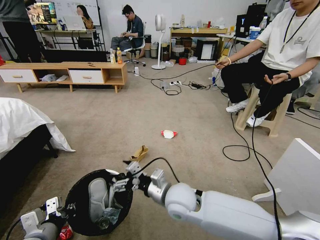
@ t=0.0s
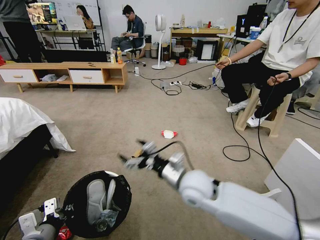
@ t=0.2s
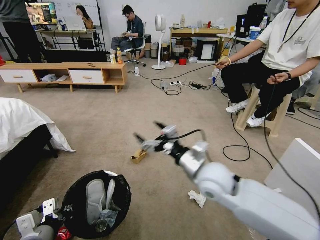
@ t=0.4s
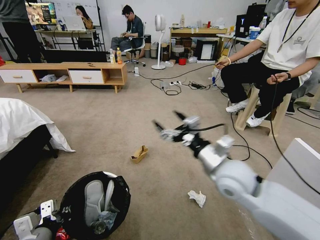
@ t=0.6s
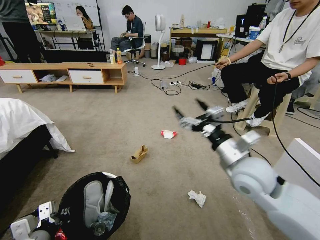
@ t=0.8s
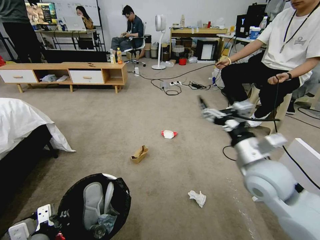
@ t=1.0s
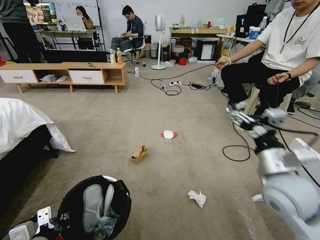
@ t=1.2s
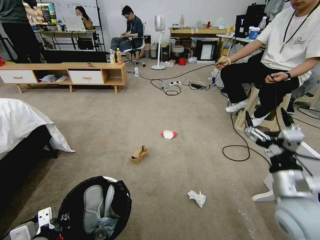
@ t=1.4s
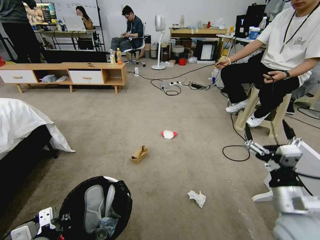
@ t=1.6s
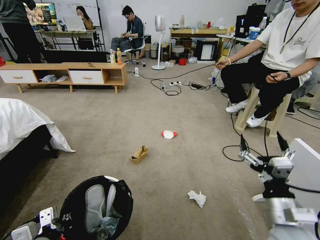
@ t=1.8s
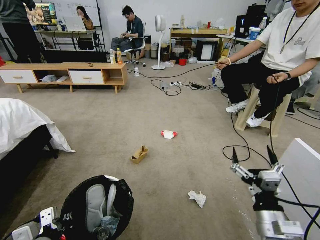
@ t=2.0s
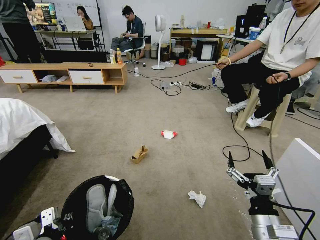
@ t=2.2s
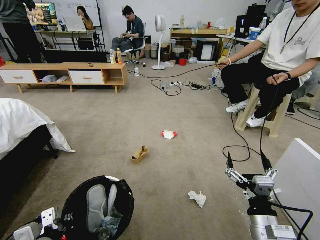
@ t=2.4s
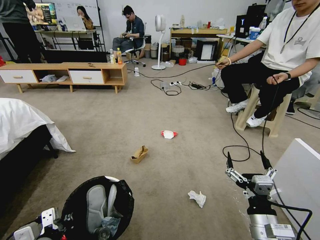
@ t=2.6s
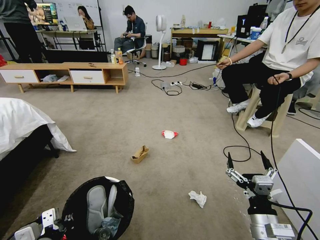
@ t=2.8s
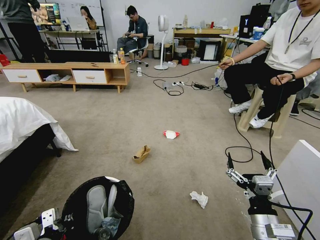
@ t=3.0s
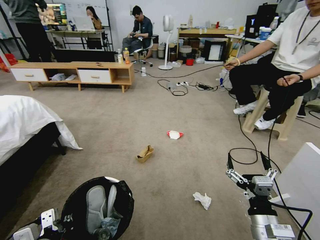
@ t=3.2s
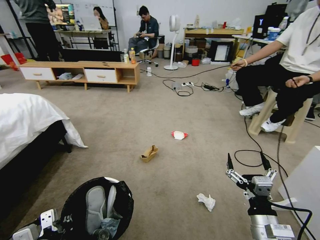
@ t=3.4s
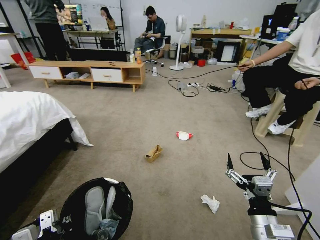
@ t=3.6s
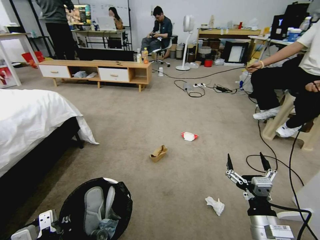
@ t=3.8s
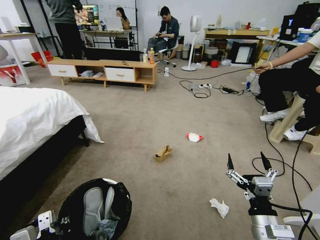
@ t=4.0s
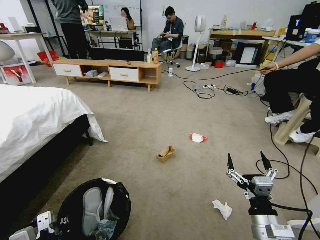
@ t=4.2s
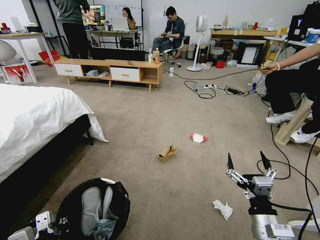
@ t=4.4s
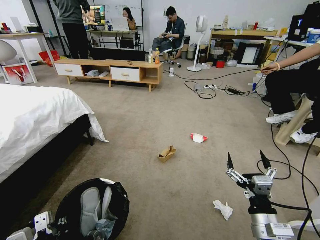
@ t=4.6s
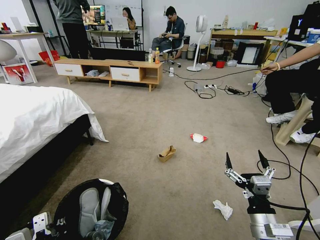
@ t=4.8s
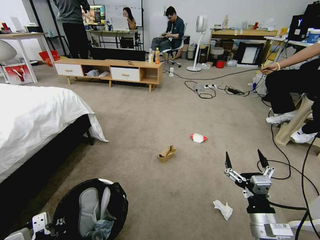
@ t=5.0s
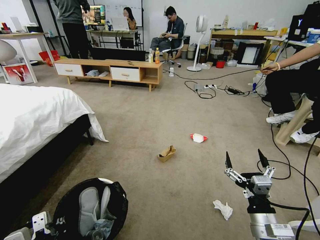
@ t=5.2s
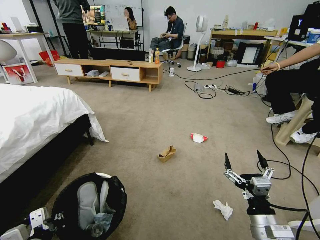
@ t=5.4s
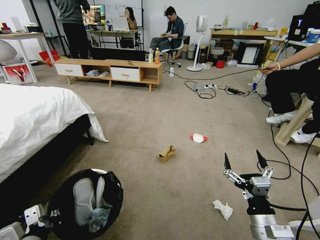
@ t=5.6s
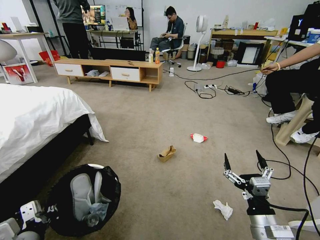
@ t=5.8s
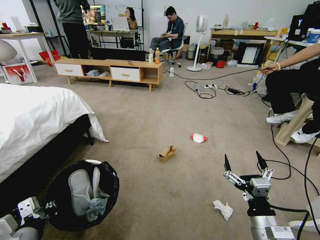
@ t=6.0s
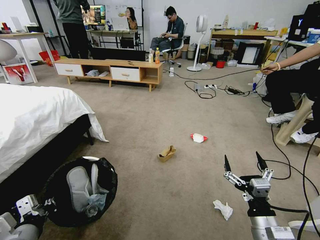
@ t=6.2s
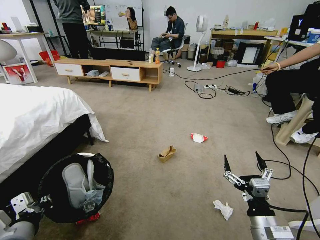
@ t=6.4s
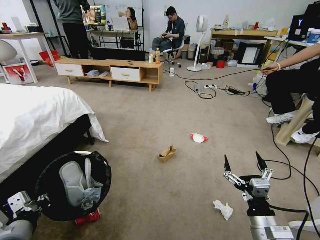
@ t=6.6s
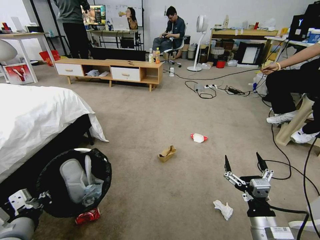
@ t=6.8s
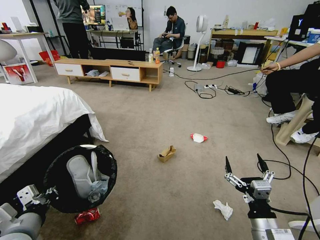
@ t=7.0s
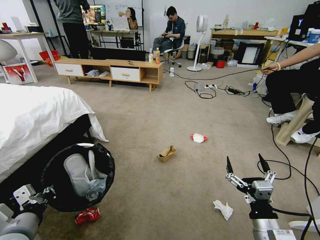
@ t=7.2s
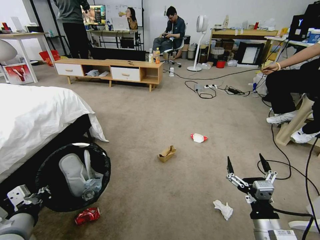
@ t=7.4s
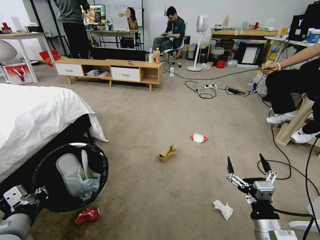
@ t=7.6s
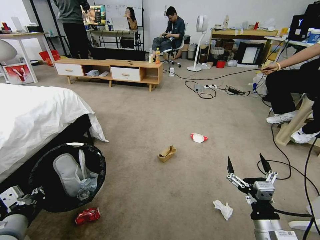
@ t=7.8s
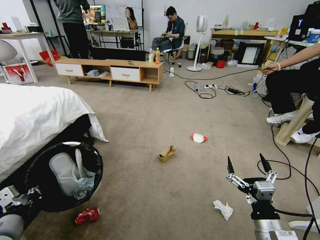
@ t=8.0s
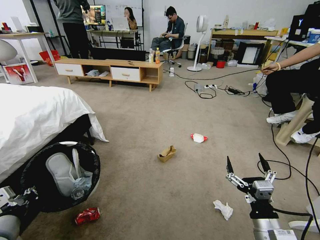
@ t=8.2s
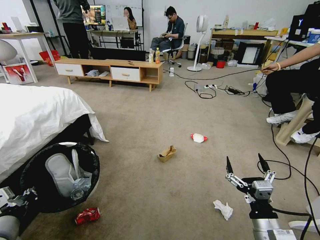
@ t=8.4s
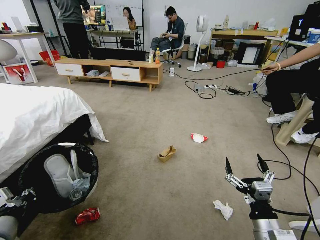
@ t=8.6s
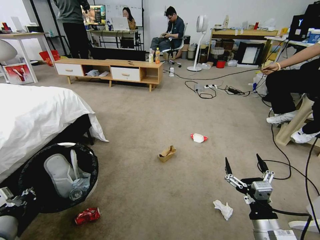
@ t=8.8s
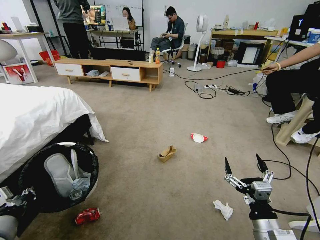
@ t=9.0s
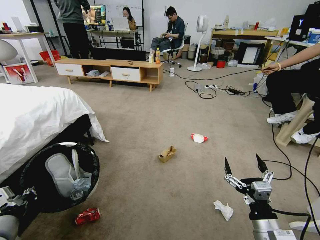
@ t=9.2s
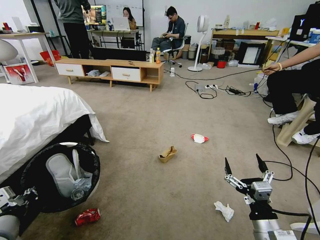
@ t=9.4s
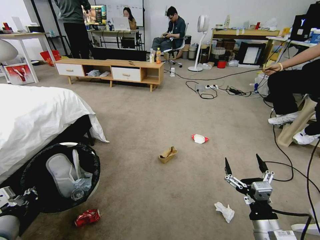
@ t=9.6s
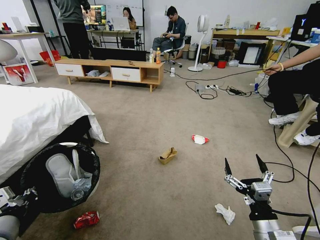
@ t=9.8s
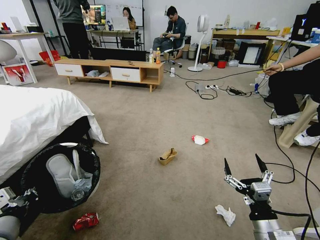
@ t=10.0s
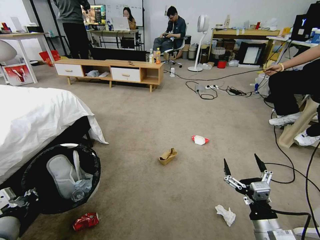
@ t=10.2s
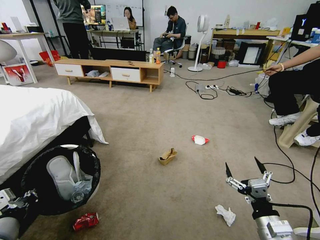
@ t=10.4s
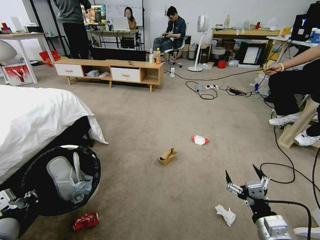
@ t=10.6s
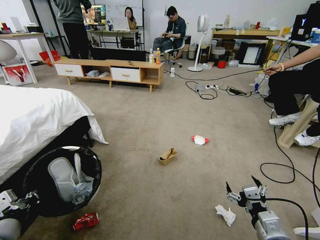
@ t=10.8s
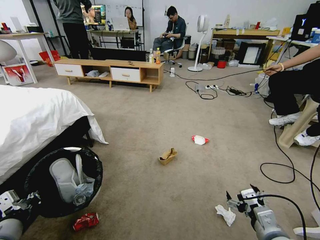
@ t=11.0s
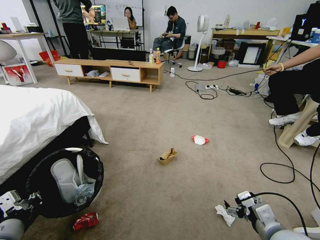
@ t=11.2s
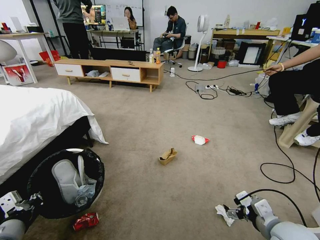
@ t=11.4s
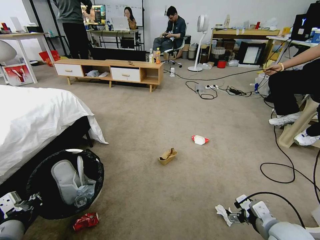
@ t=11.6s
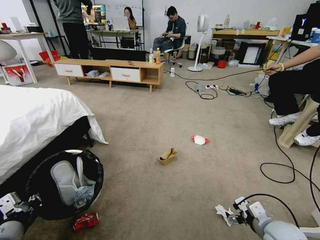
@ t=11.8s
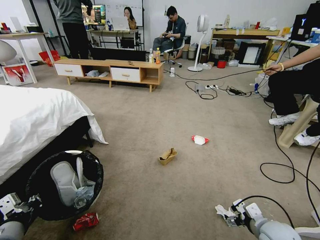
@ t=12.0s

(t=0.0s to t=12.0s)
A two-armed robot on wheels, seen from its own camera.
Task of the whole recording: Pick up the trash bin and place the garbage on the floor into it.
t=0.0s - t=1.6s: The right gripper heads to the right, covering roughly 25 cm.
t=1.6s - t=3.0s: The right gripper moves downward, approximately 10 cm.
t=4.4s - t=6.0s: The grippers move only a little.
t=6.0s - t=10.4s: There are only small adjustments of the grippers.
t=10.4s - t=12.0s: The right gripper heads forward, covering about 5 cm.

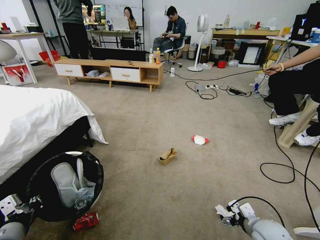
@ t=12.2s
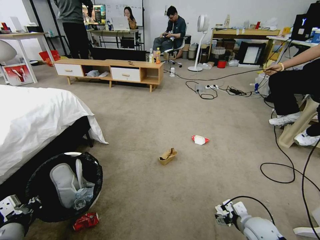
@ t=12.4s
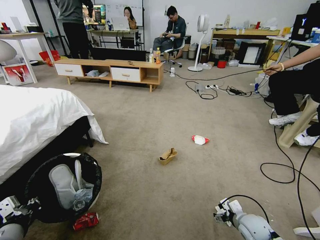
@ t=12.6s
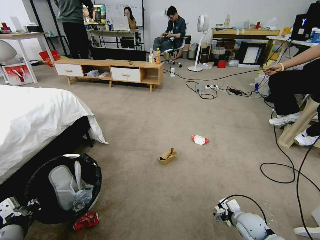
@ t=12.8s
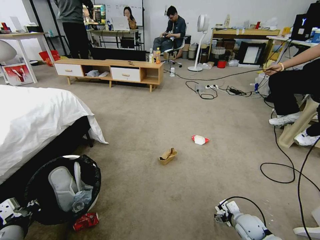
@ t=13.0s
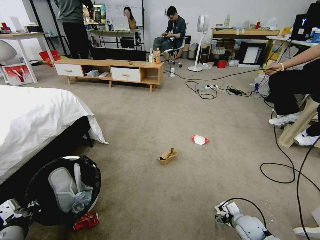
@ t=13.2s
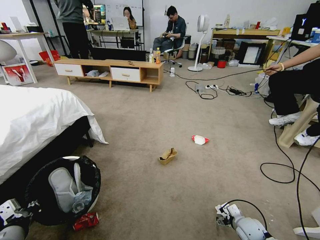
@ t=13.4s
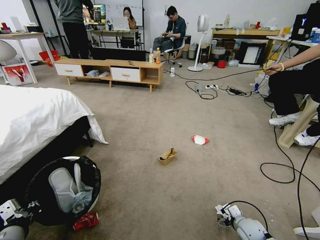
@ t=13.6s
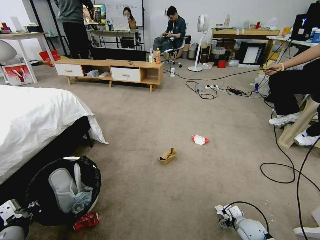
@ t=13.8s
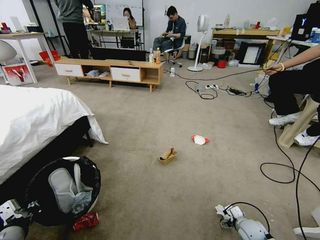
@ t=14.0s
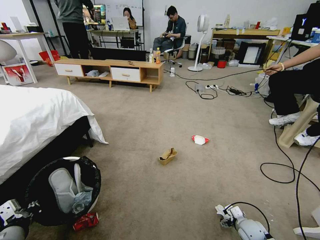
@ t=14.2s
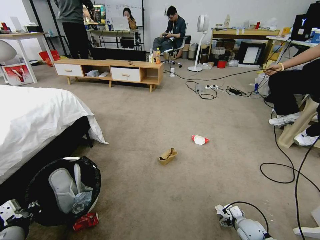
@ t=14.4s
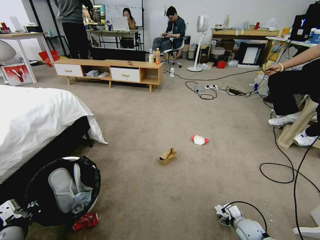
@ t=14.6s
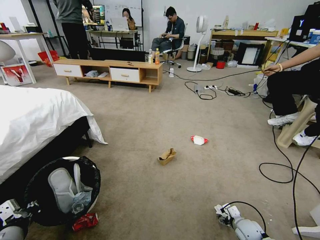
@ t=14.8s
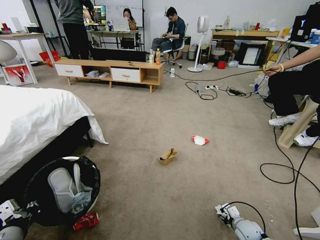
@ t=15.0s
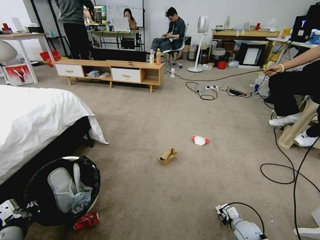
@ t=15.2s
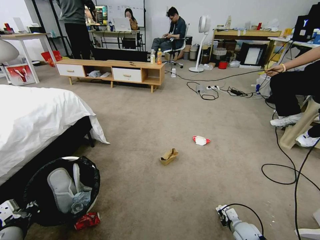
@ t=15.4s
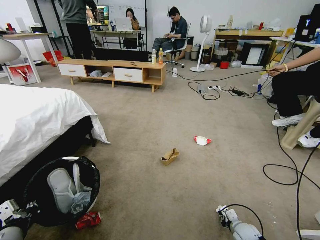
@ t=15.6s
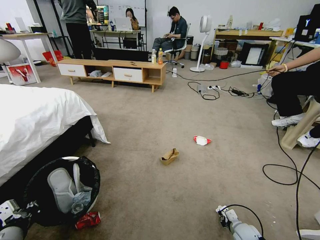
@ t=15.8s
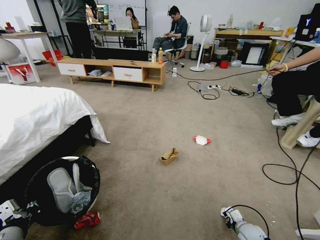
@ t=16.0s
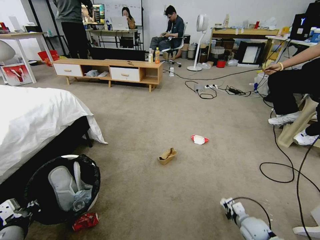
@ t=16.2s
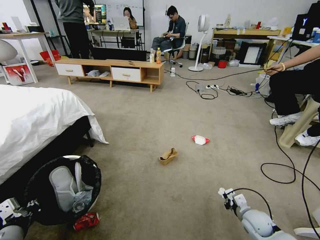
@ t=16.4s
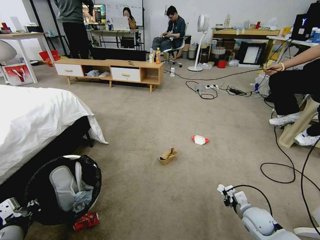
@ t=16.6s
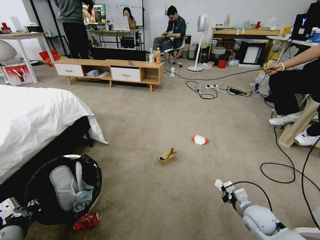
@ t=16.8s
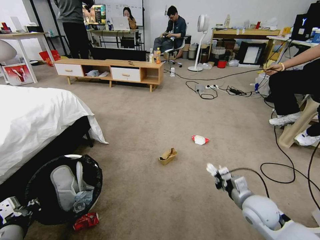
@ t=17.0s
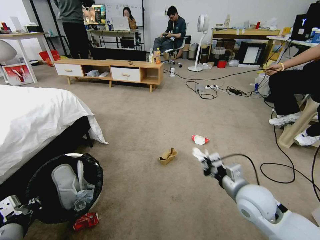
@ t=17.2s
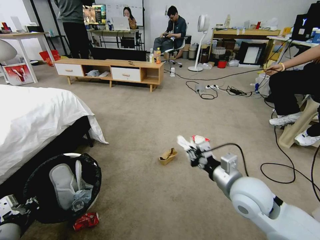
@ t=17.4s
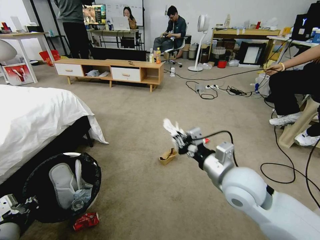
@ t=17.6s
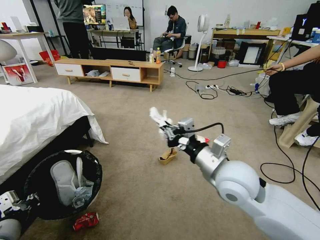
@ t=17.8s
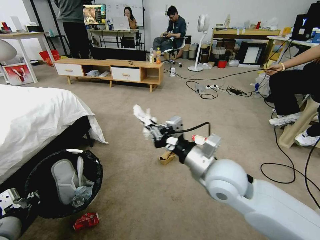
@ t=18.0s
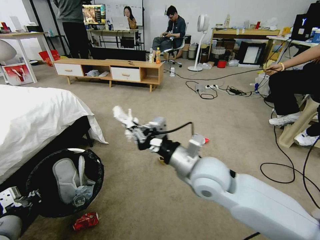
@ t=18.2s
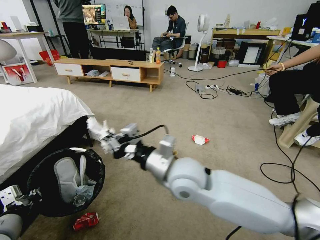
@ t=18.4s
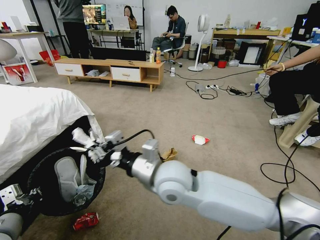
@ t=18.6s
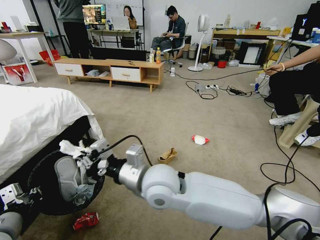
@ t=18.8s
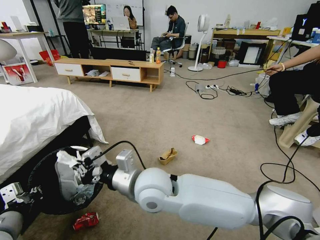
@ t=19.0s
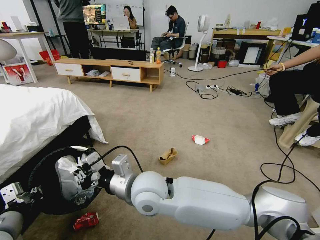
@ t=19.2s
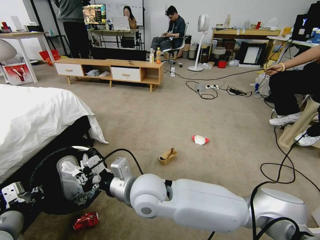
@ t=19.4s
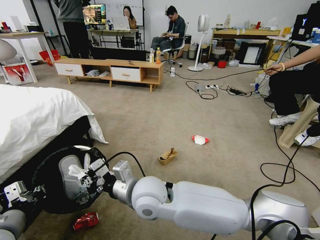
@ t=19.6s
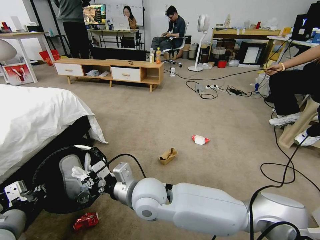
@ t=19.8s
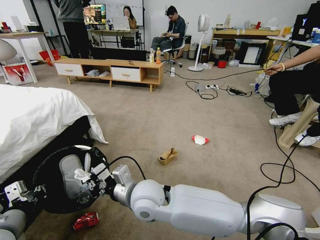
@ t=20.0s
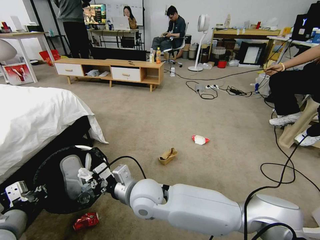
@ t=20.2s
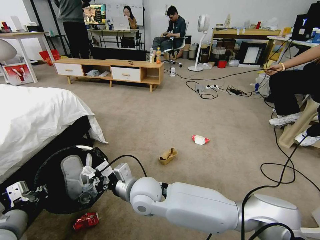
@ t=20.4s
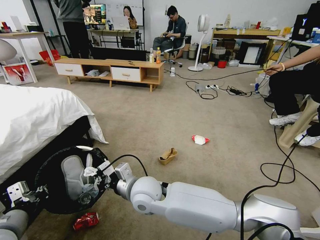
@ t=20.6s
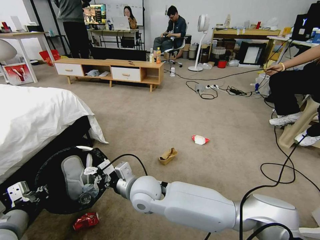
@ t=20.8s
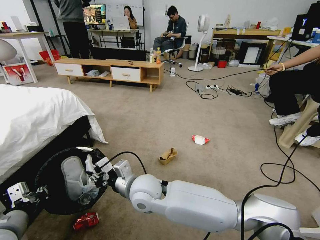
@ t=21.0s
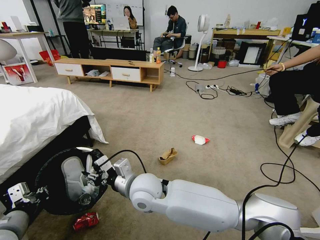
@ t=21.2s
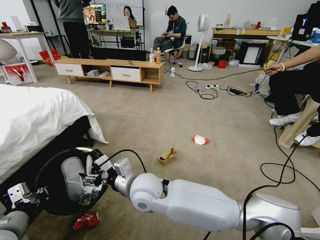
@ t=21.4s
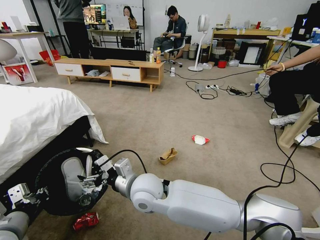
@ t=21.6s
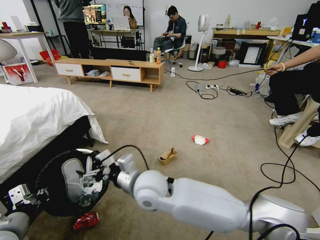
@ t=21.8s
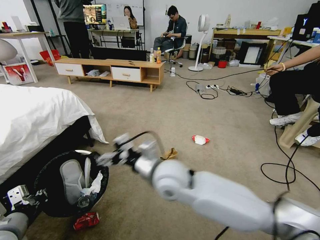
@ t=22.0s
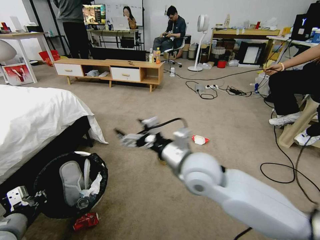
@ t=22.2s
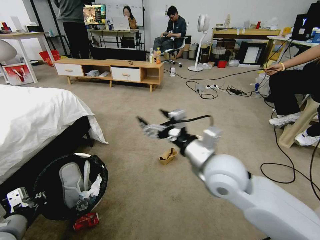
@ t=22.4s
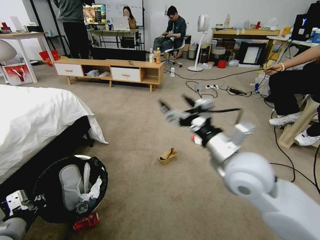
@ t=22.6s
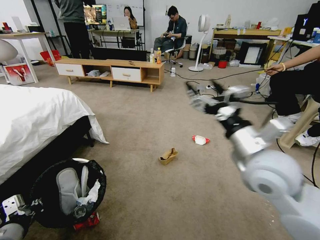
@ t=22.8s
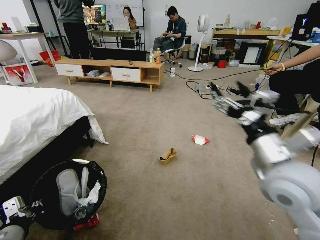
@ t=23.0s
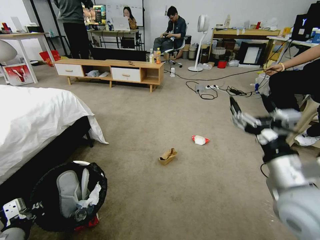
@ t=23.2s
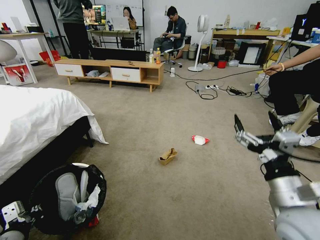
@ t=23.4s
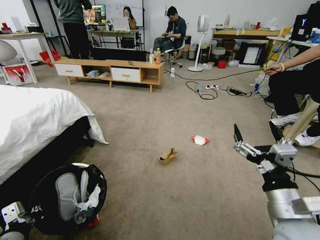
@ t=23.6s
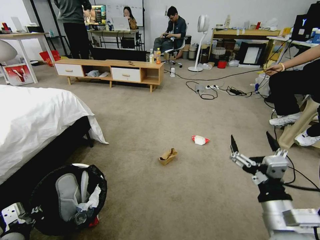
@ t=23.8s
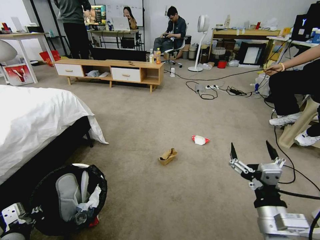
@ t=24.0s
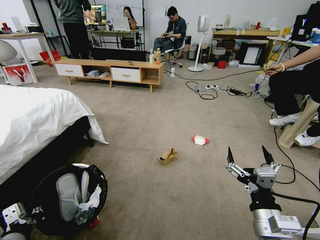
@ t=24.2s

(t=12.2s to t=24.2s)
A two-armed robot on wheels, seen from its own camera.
Task of the whole recording: Pick up the trash bin and place the garbage on the floor into it.
t=12.2s - t=13.8s: The right gripper shifts some 15 cm downward and forward.
t=13.8s - t=15.2s: The right gripper closes up.
t=15.2s - t=16.6s: The right gripper is displaced upward by some 10 cm, and closes its fingers.
t=16.6s - t=18.2s: The right gripper shifts about 35 cm upward and to the left.
t=18.2s - t=19.8s: The right gripper travels to the left and downward by roughly 15 cm.
t=19.8s - t=21.2s: The right gripper opens its fingers.
t=21.2s - t=22.6s: The right gripper moves to the right and upward, some 25 cm, and opens up.
t=22.6s - t=24.2s: The right gripper travels downward, backward and to the right by roughly 20 cm.
